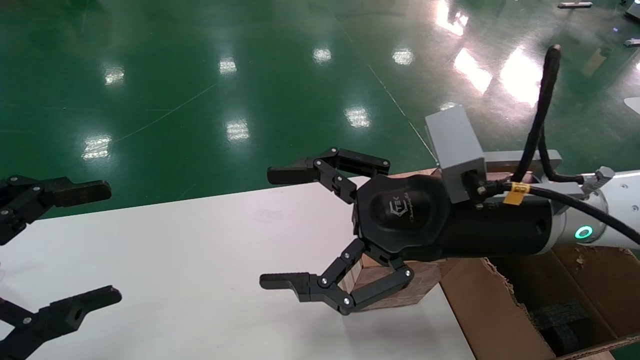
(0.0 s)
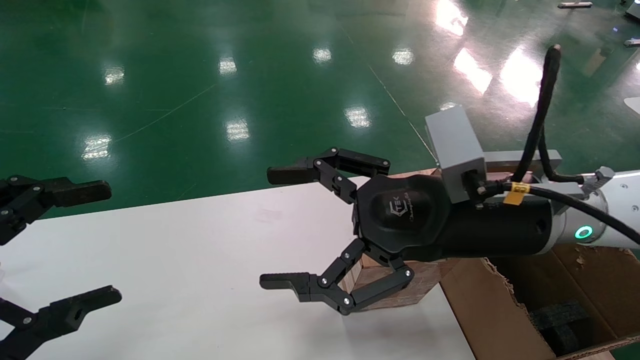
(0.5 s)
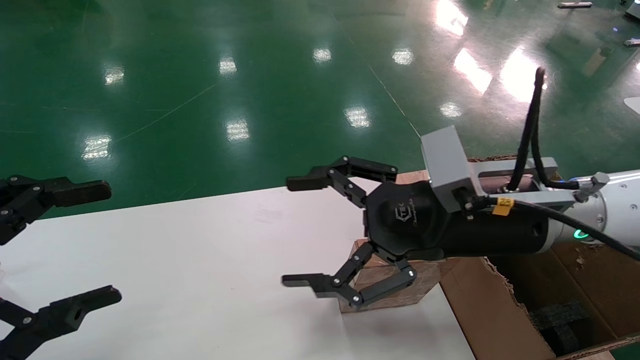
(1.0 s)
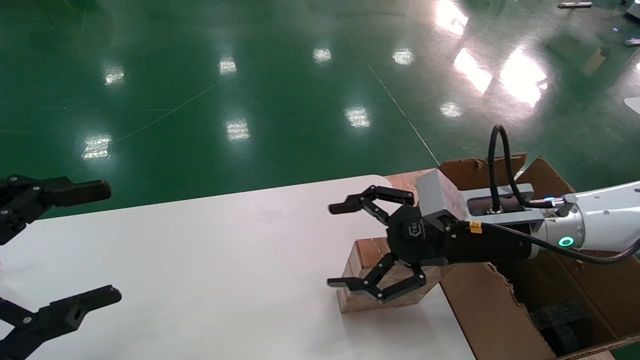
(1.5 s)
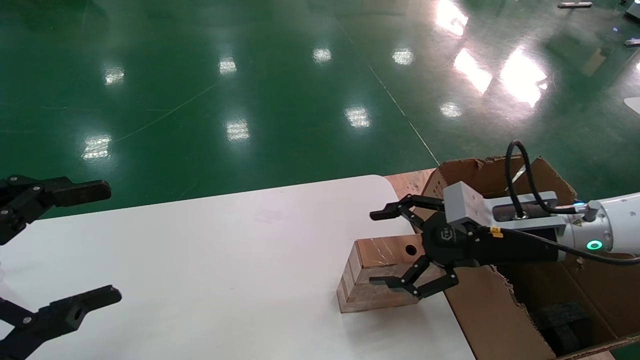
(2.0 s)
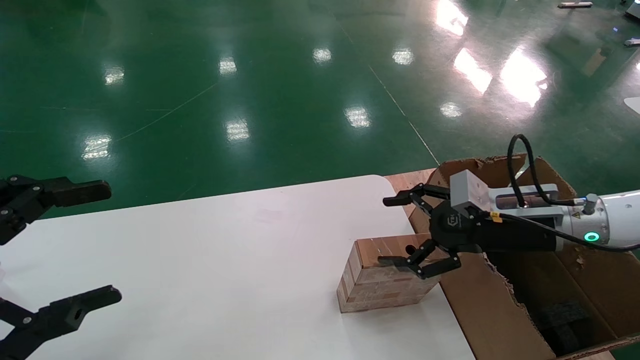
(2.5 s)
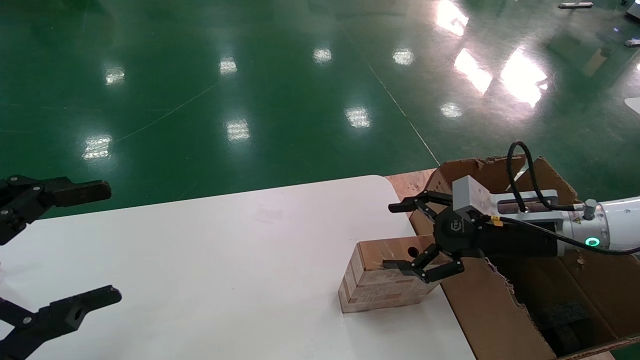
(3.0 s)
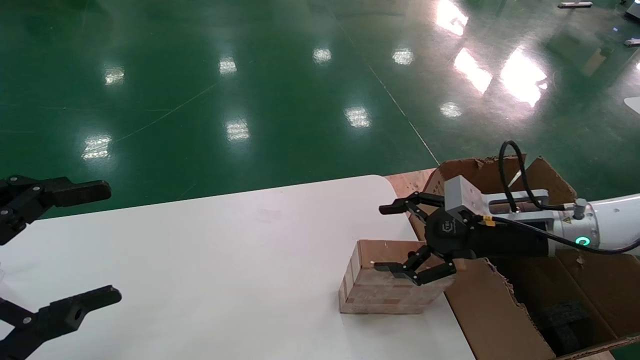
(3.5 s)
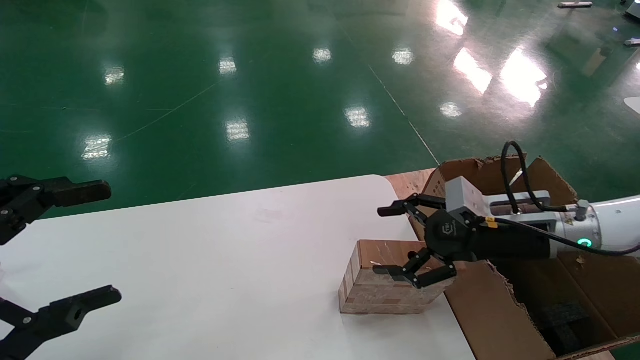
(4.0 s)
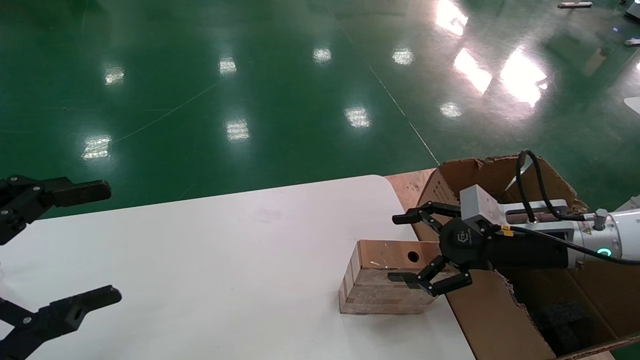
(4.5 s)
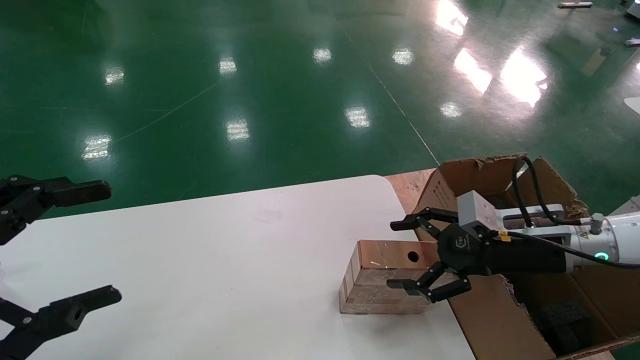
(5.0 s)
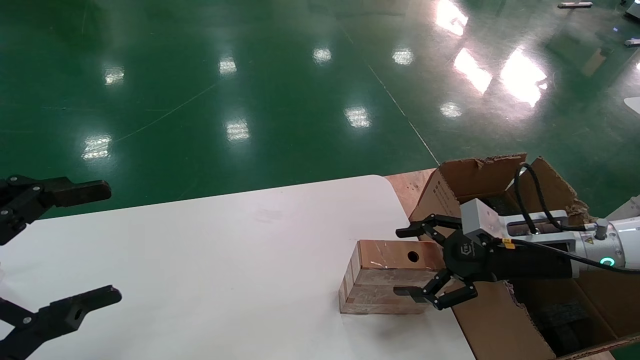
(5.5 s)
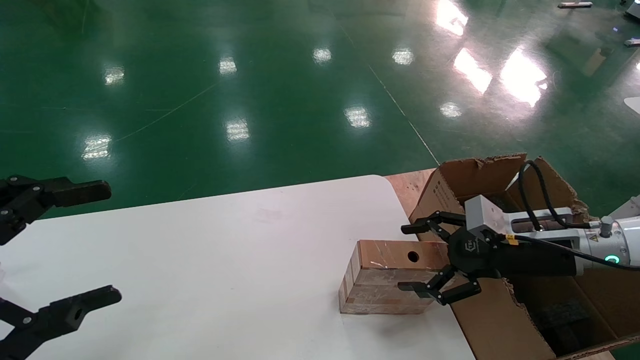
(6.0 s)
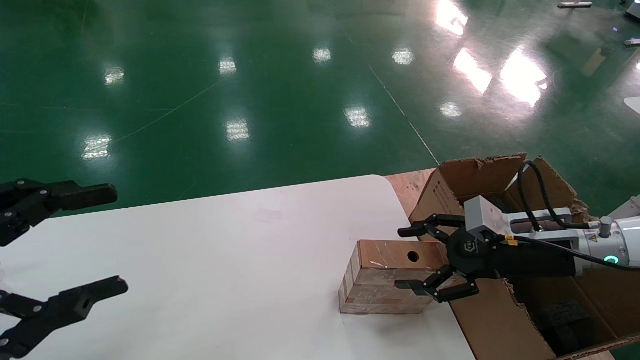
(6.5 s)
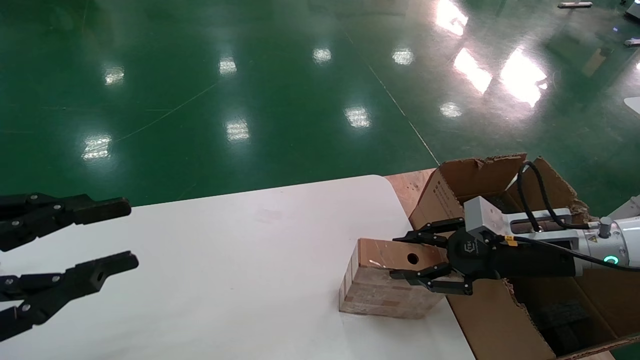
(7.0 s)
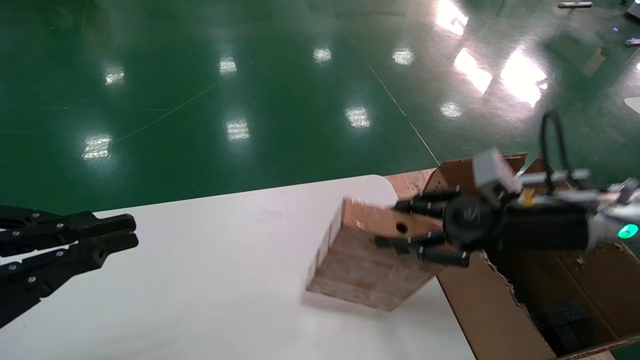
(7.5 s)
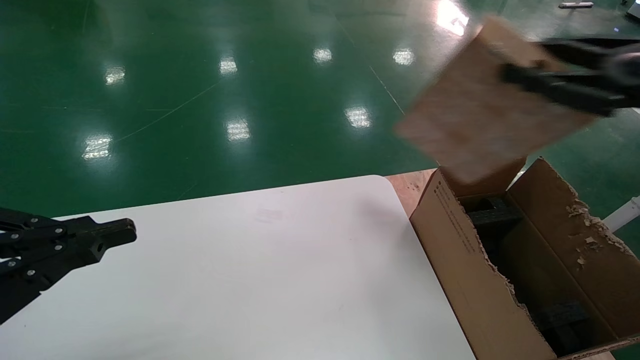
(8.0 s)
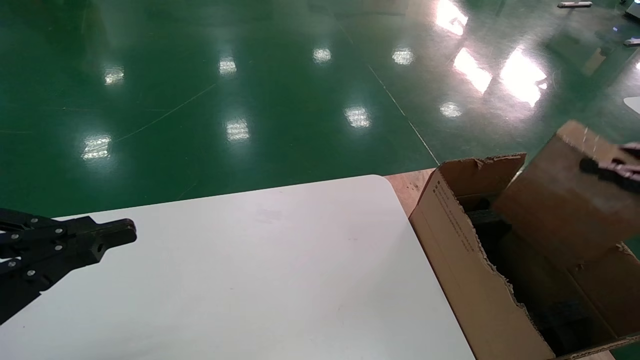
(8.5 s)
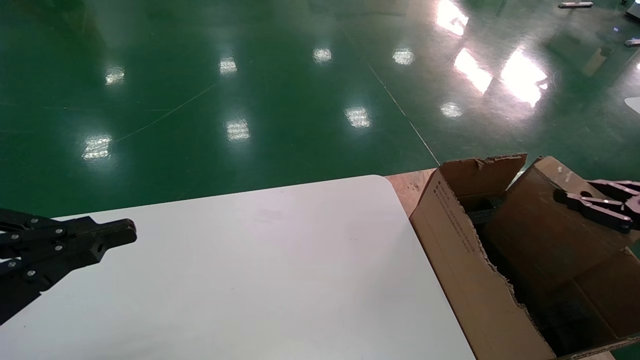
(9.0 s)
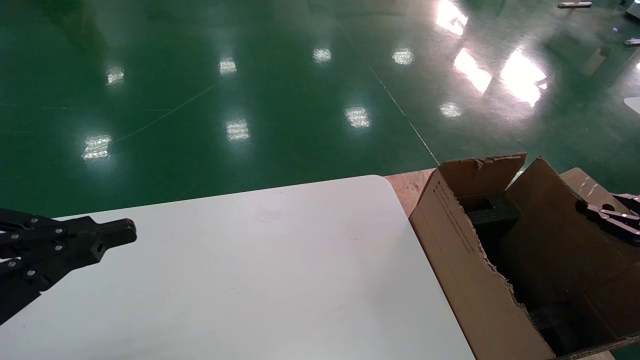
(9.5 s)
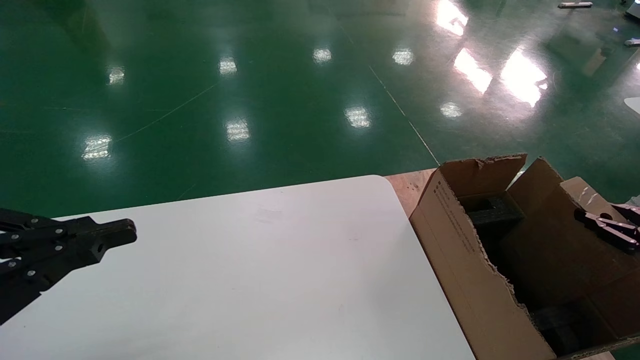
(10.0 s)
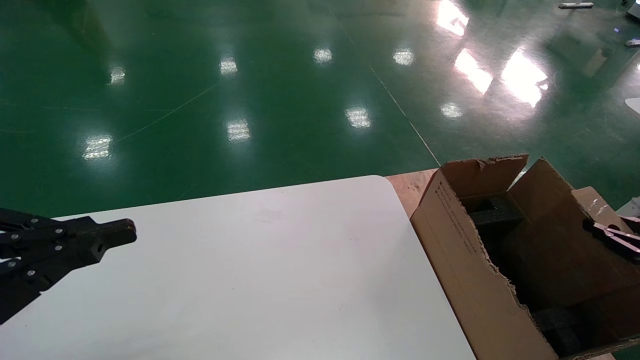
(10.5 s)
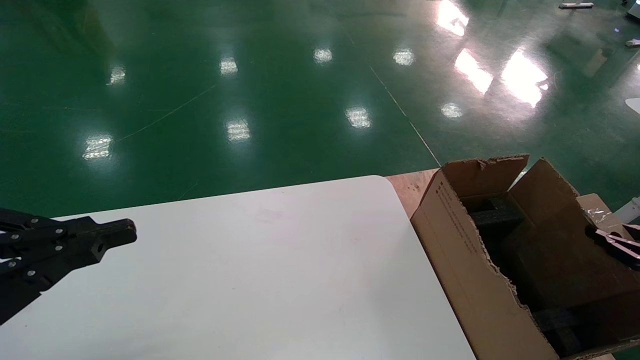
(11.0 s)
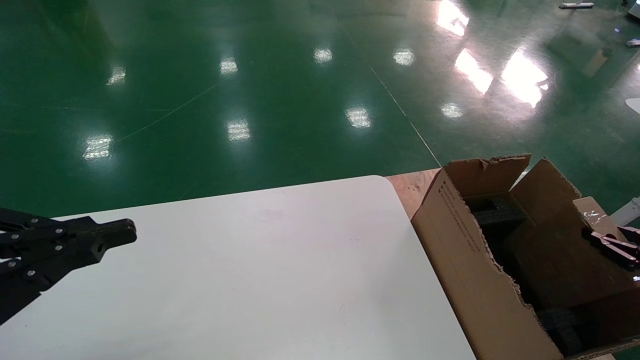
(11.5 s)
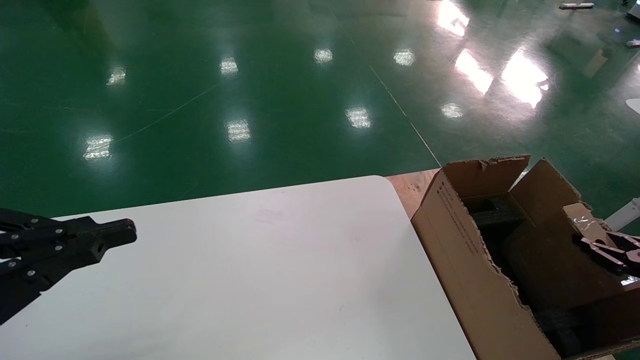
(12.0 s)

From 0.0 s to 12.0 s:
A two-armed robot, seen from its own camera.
Task of the whole recording: put the box on the table into the big box.
Step, from 1.5 s to 7.0 s: Pick up the mouse and the power cord paper box.
From 0.0 s to 2.0 s: The right gripper shifts some 15 cm to the right, downward and forward.
From 2.0 s to 4.0 s: The grippers move only a little.
From 4.0 s to 6.0 s: The grippers move only a little.
From 6.0 s to 8.0 s: The right gripper travels upward, backward and to the right by approximately 20 cm, and closes its fingers, while the left gripper closes.
From 8.0 s to 10.0 s: The right gripper is displaced downward and to the right by approximately 25 cm.
From 10.0 s to 12.0 s: The right gripper goes about 5 cm downward.

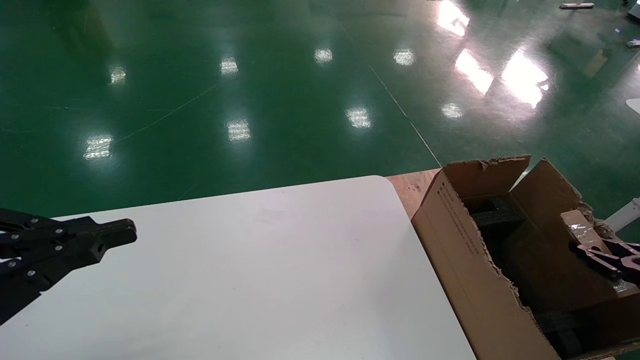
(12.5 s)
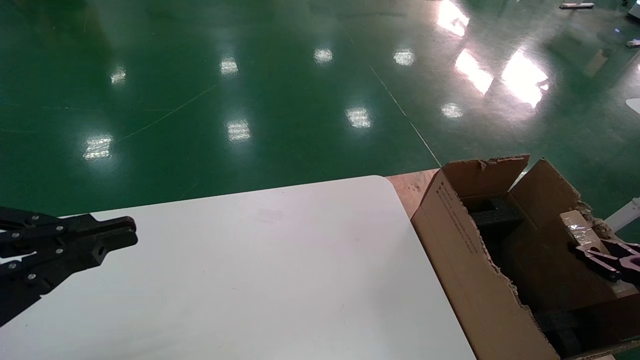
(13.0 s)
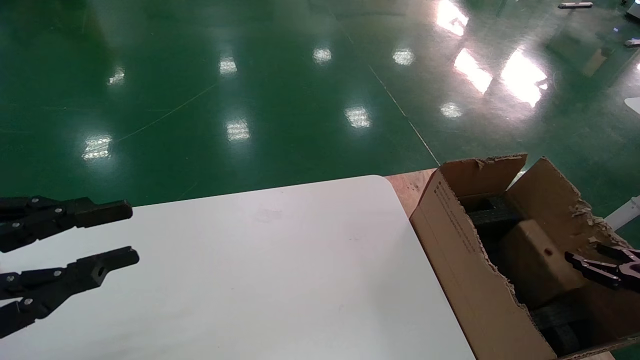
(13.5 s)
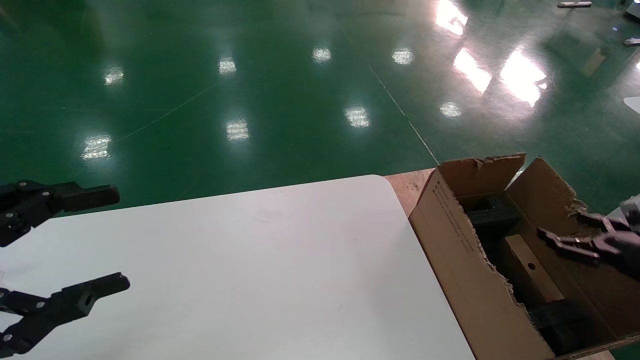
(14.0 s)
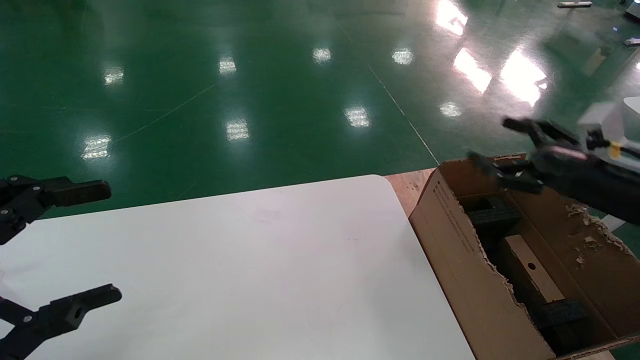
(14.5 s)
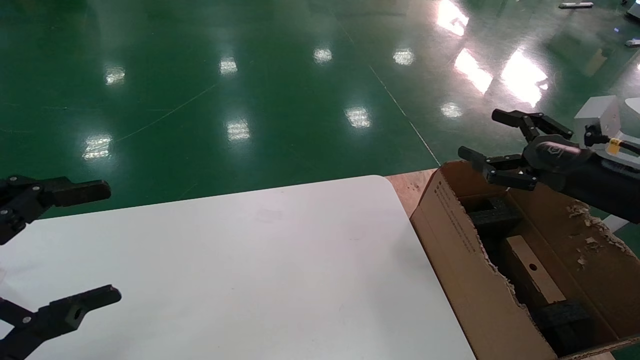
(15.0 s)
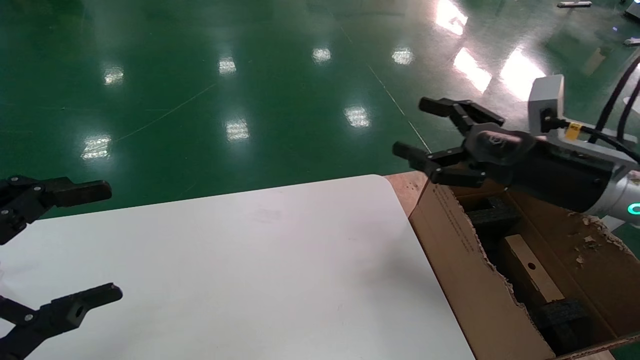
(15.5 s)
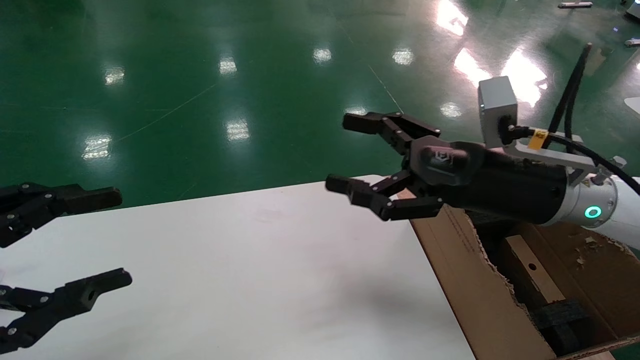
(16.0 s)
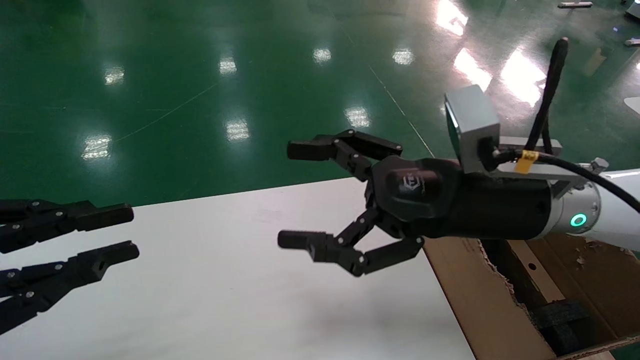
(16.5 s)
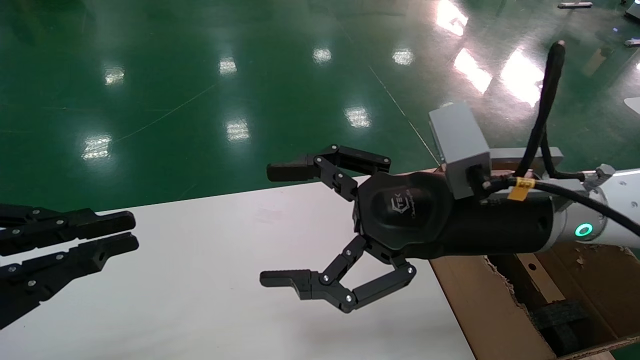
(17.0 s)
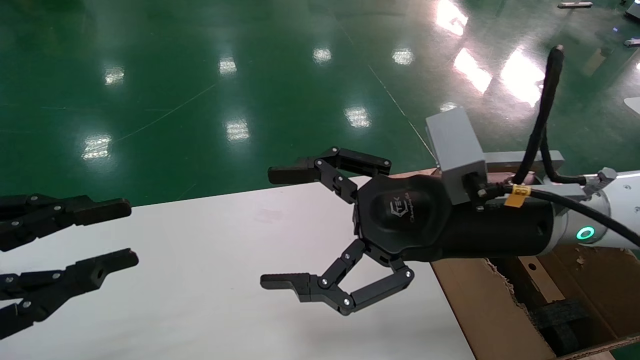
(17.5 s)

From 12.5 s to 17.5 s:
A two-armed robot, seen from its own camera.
Task of the whole recording: put the box on the table into the big box.
From 12.5 s to 15.0 s: The left gripper opens, while the right gripper is displaced upward, to the left and forward by roughly 25 cm, and opens up.
From 15.0 s to 17.5 s: The right gripper moves to the left, some 25 cm. Meanwhile the left gripper closes.
